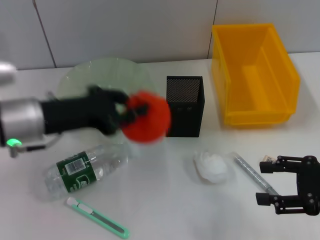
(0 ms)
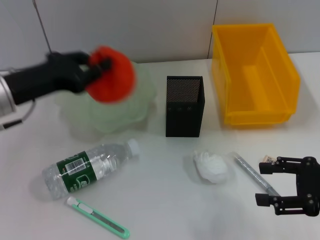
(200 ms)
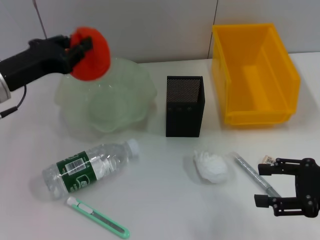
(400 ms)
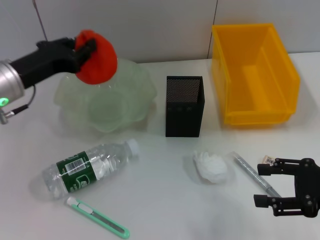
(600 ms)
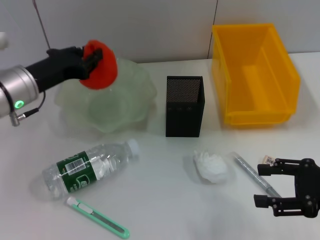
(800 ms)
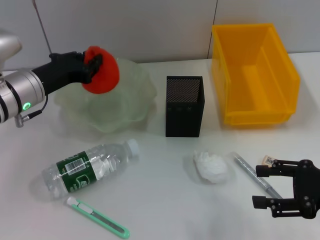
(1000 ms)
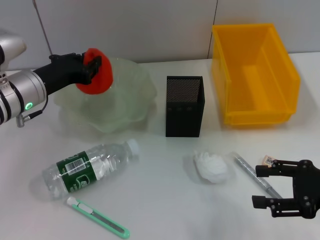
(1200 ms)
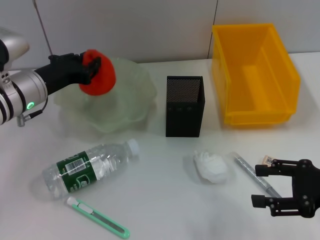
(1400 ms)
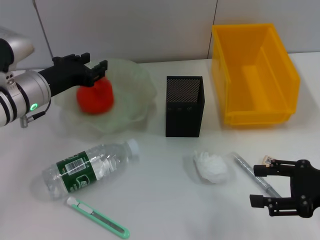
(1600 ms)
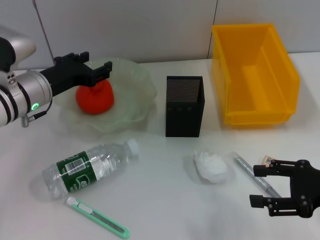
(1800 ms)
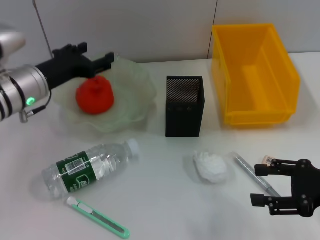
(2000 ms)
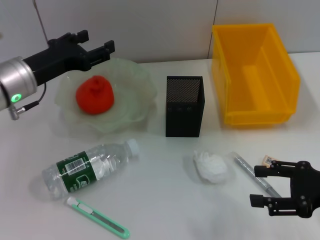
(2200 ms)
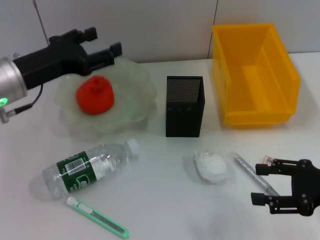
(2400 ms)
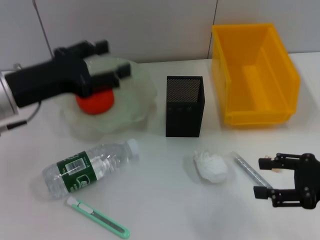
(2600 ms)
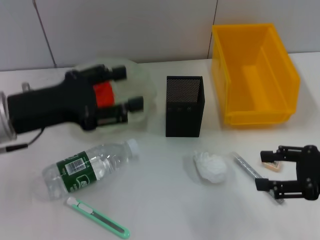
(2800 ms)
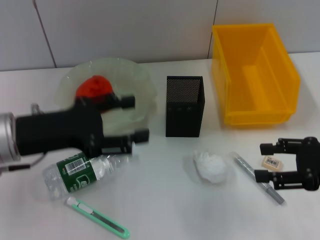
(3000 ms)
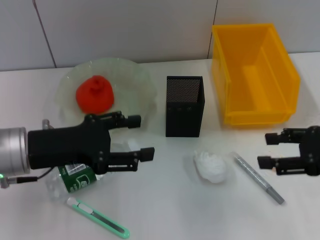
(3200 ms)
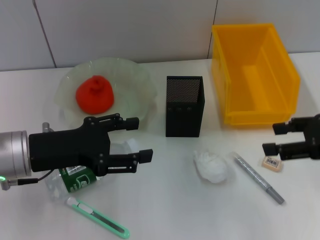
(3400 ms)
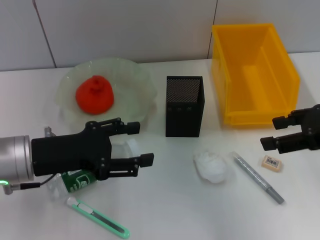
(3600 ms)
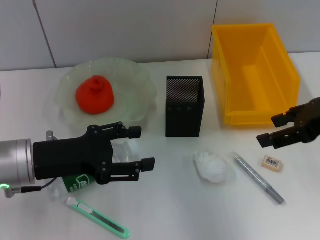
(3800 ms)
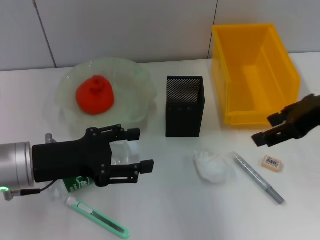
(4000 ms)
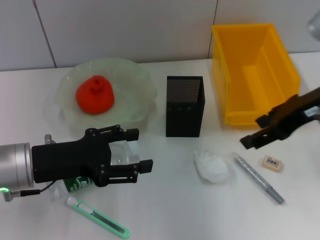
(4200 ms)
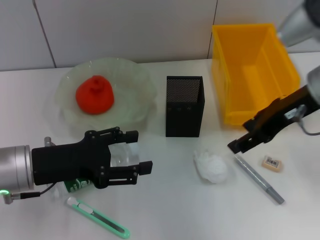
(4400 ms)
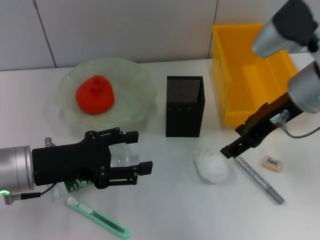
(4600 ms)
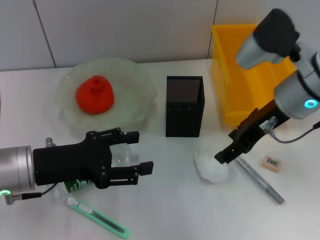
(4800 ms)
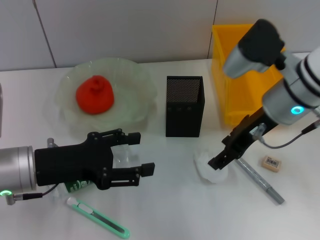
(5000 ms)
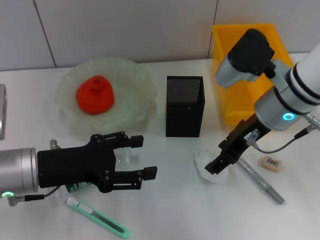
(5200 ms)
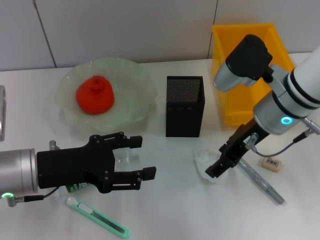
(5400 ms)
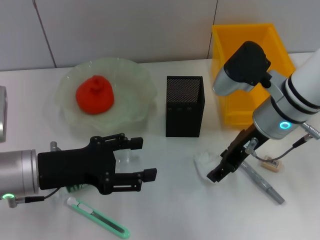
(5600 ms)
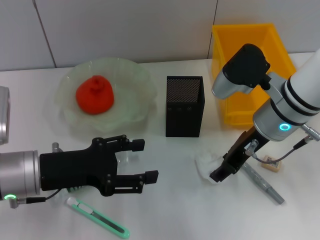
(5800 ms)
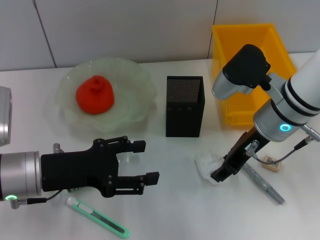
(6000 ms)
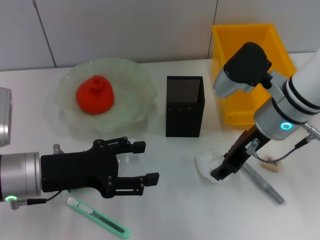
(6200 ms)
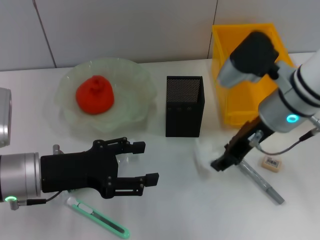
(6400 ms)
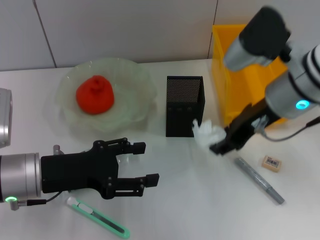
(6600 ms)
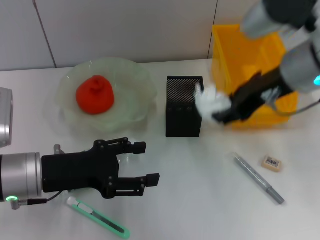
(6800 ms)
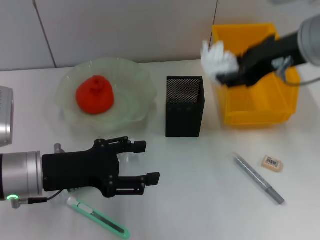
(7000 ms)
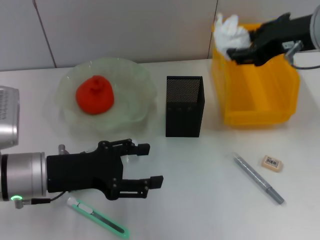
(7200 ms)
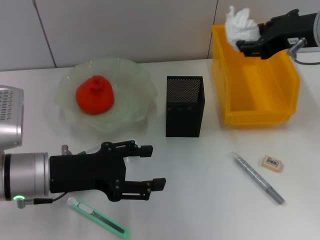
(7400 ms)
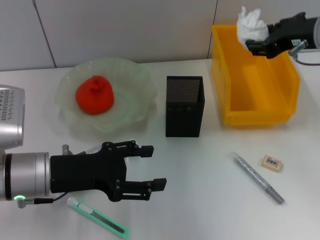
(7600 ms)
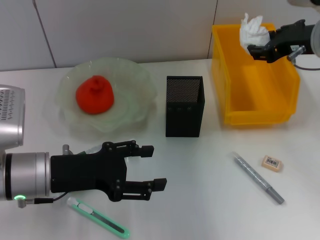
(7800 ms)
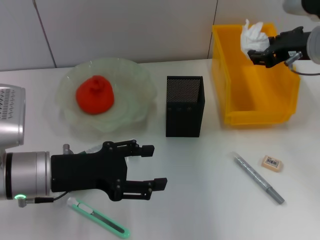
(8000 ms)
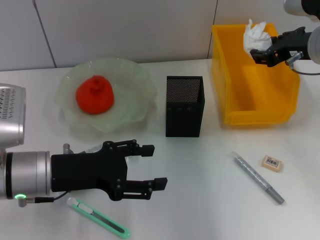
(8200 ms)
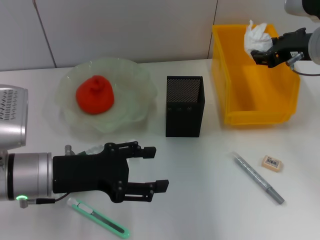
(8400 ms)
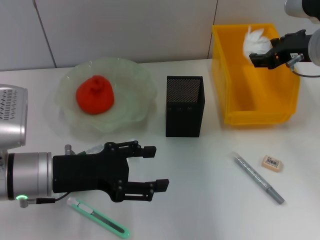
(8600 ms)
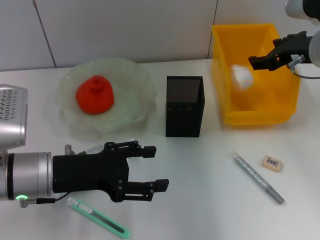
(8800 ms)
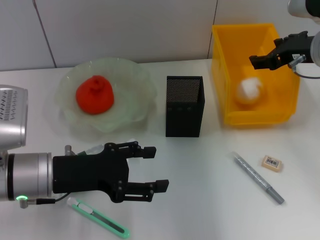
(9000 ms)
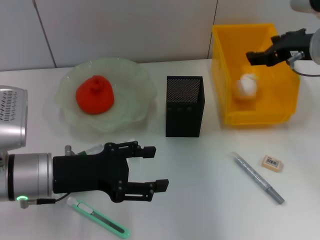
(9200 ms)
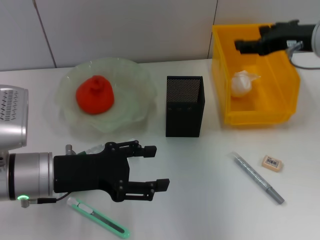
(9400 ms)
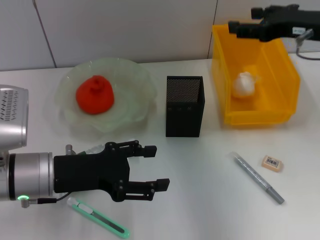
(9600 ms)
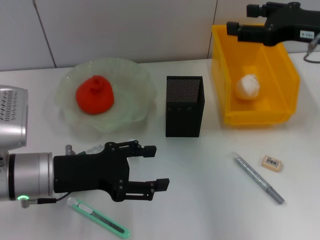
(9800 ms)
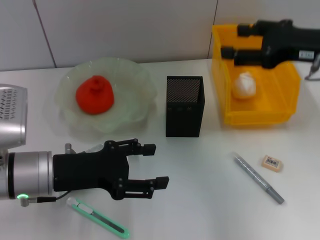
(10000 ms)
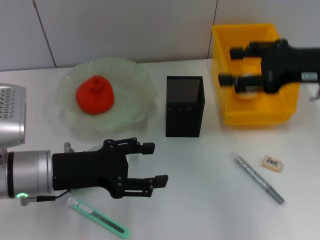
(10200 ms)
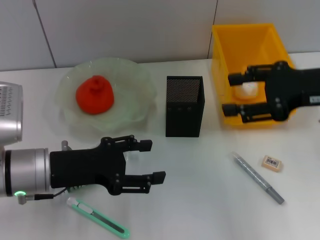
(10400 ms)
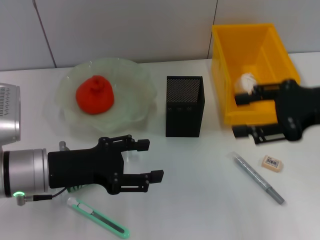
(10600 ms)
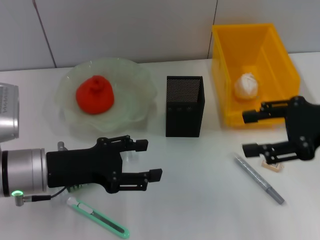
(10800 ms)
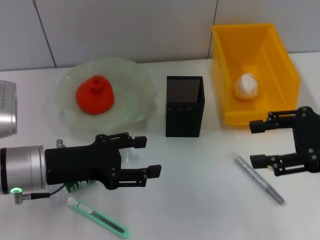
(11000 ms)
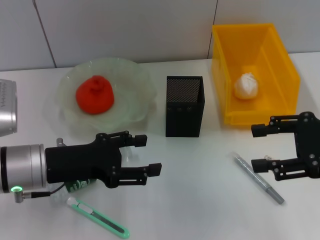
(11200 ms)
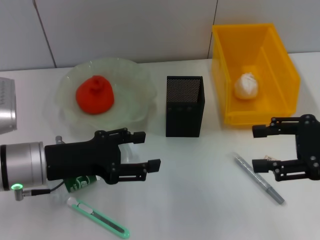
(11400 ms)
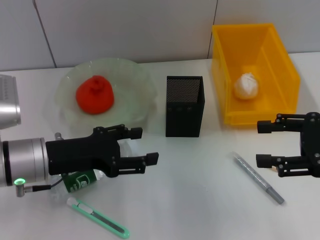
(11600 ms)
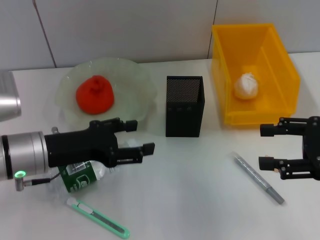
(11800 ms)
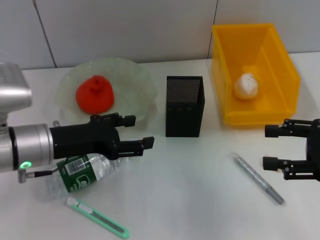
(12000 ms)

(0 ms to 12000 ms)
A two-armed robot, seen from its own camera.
Step, 0 ms - 1800 ms: Place the orange into the fruit bowl with the left hand.
Step, 2200 ms - 5800 ms: Grab the paper ball with the right hand.
Step, 6000 ms - 9400 ms: Place the paper ball into the trash can with the right hand.
0 ms - 1600 ms: The left gripper travels forward by roughly 10 cm.
1600 ms - 3000 ms: The left gripper heads backward, covering approximately 10 cm, and opens up.
3000 ms - 4400 ms: The right gripper is displaced to the left, upward and forward by about 15 cm.
4400 ms - 6000 ms: The right gripper shifts some 10 cm downward and to the left.
6000 ms - 7600 ms: The right gripper heads upward and to the right, covering roughly 10 cm.
7600 ms - 9000 ms: The right gripper shifts by some 5 cm, and opens.
9000 ms - 10400 ms: The right gripper travels backward by about 10 cm.
10400 ms - 12000 ms: The right gripper moves backward, downward and to the right, about 10 cm.

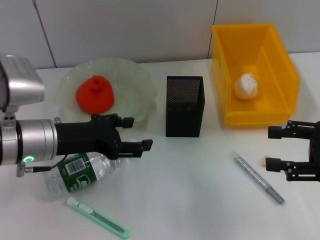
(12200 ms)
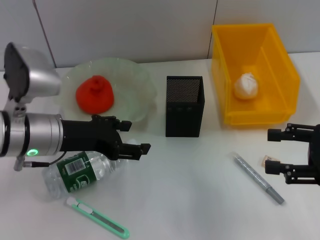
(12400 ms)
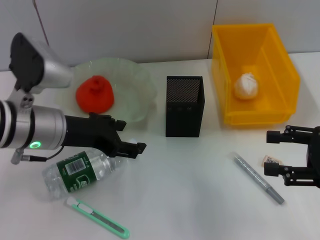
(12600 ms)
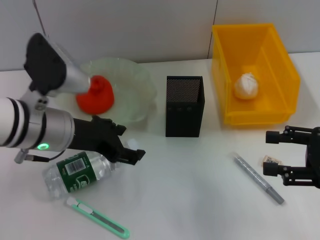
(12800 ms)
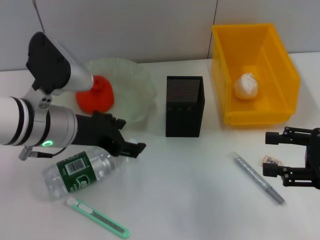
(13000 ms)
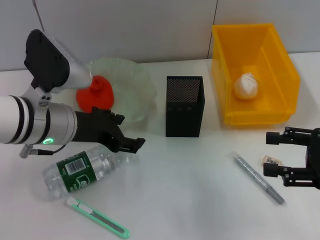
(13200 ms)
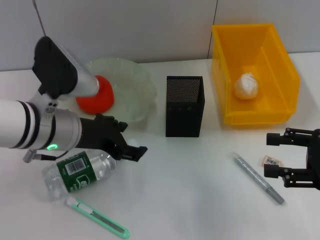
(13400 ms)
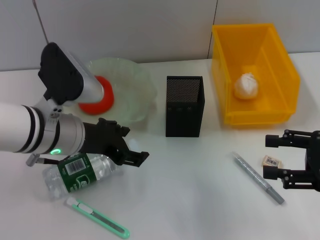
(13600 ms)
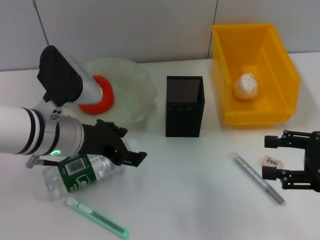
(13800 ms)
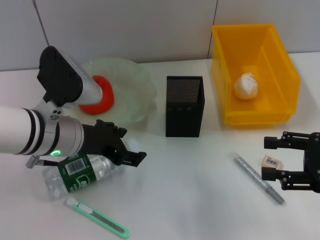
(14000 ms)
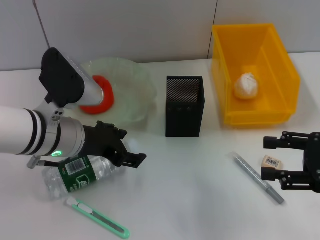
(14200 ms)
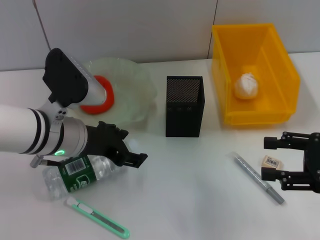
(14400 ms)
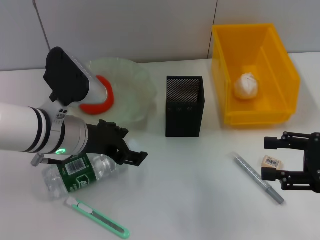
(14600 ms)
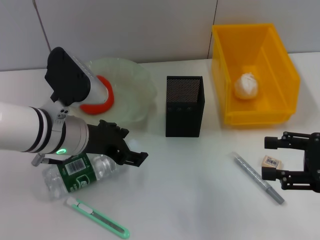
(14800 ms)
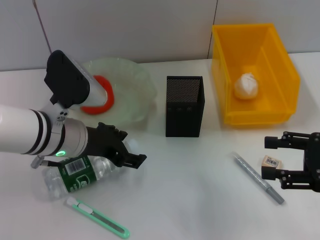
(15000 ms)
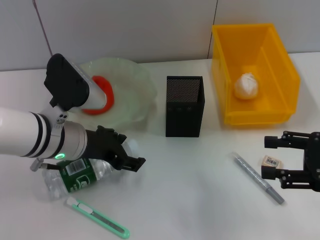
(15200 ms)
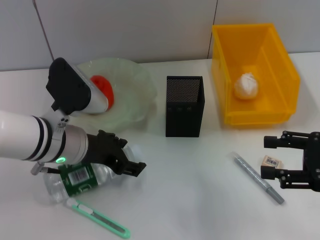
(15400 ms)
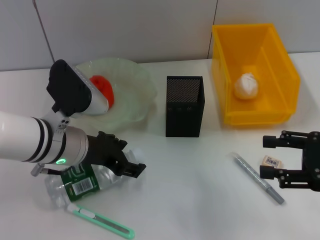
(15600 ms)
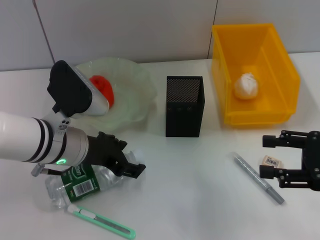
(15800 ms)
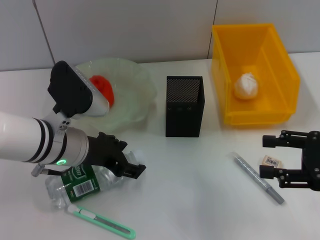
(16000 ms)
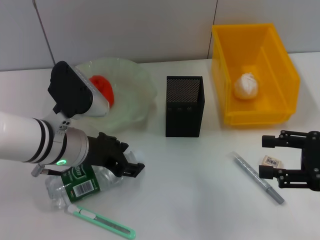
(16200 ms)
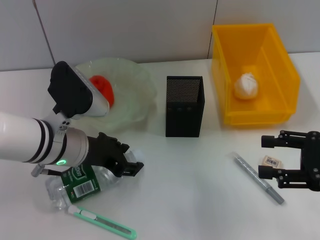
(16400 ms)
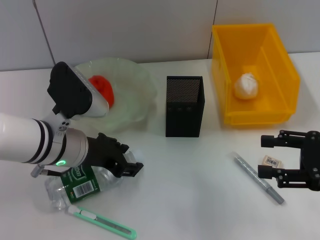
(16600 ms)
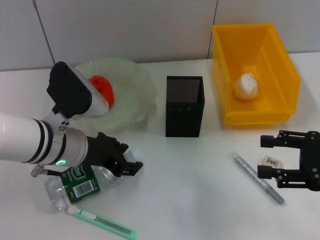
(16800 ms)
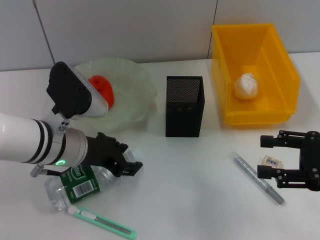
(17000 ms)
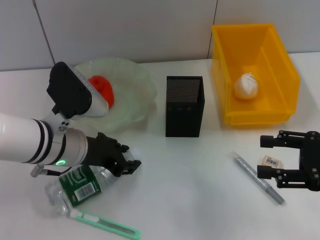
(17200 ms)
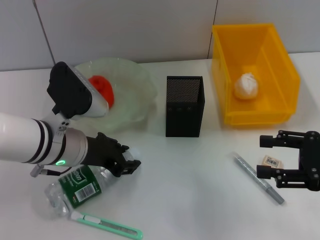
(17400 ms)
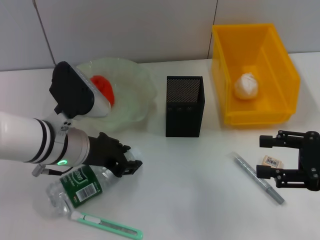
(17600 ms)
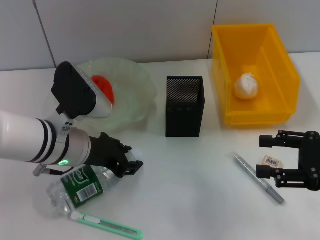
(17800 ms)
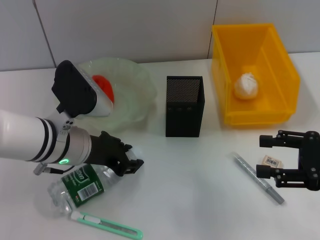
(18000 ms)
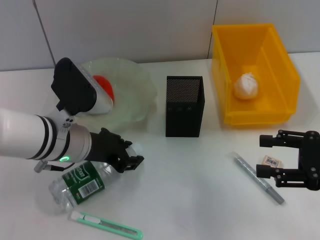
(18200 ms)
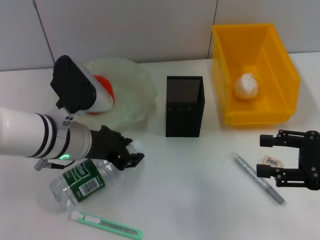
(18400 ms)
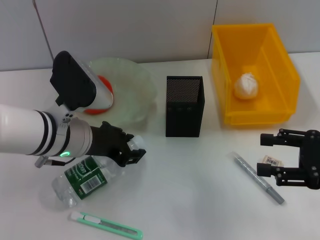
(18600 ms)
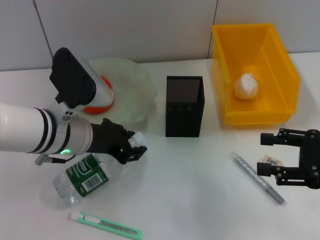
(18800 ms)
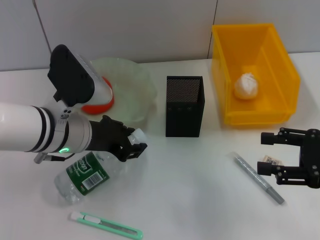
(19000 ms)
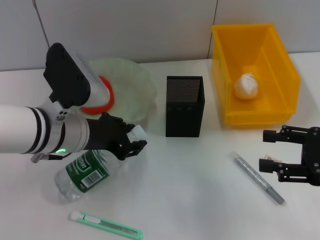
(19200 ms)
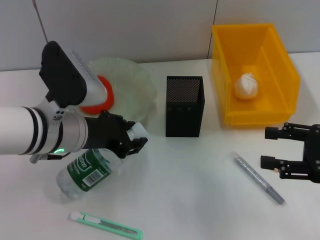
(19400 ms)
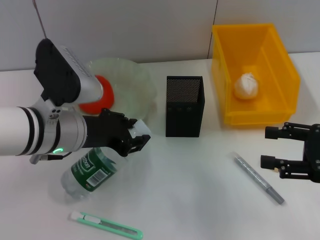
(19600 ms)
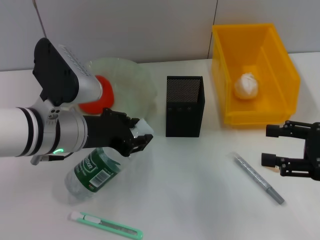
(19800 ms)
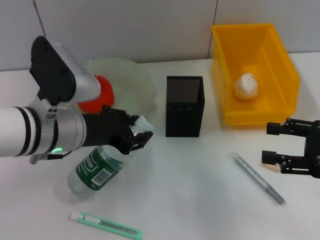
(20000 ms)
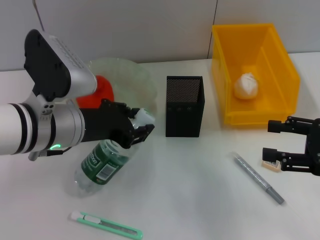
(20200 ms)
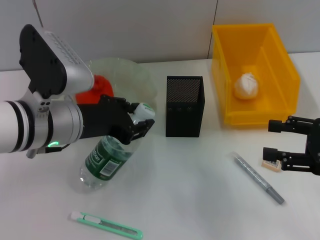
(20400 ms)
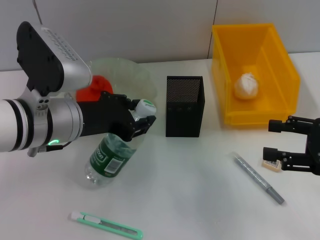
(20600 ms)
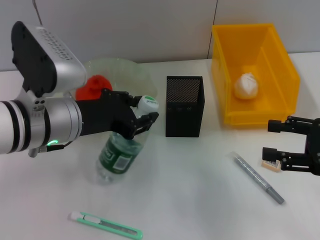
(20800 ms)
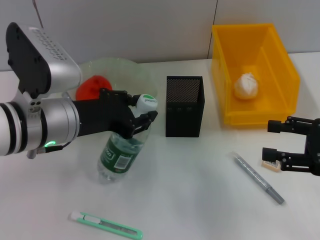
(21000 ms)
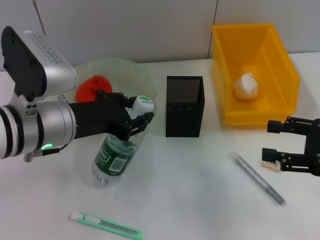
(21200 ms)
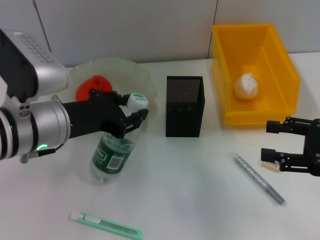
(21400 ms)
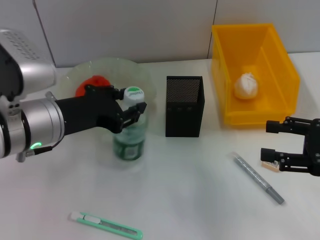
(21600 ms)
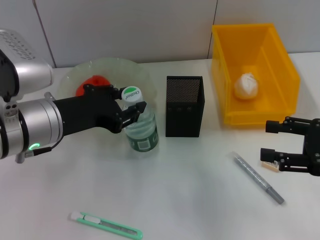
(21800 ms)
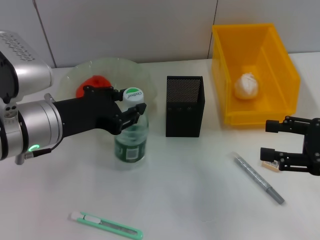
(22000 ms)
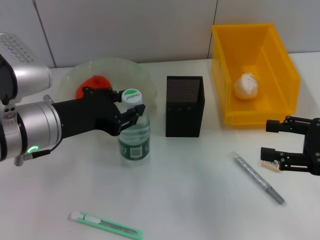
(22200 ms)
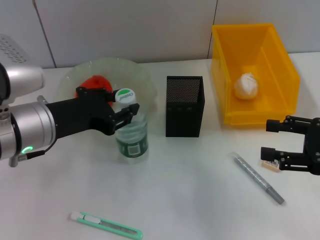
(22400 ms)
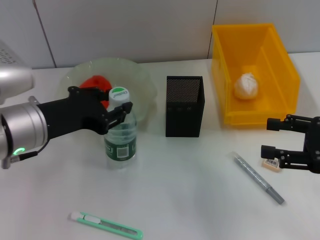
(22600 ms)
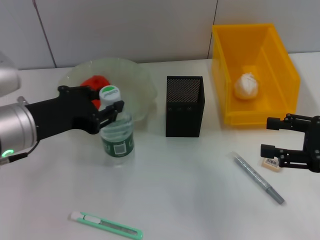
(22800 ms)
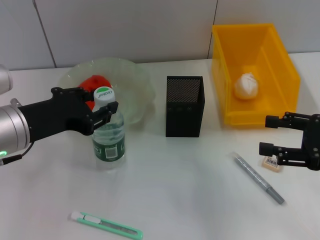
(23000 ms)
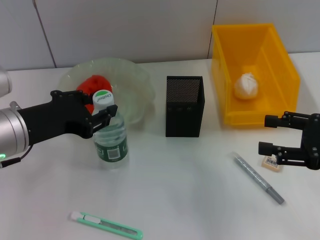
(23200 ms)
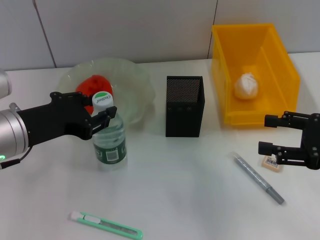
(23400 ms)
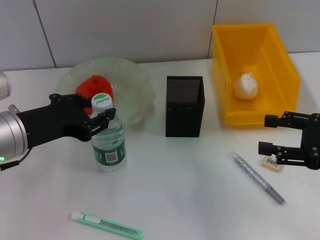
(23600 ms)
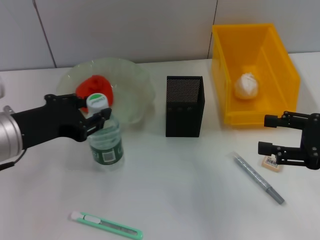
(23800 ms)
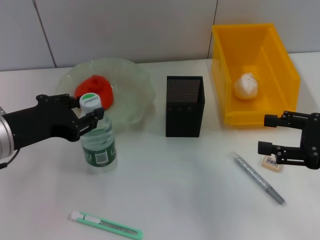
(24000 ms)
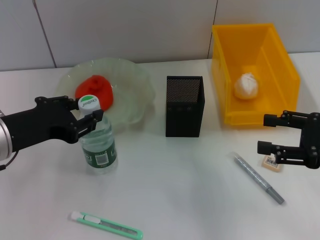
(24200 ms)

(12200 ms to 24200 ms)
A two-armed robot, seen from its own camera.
Step, 12200 ms - 17600 ms: Grab the water bottle with the left hand.
13800 ms - 15200 ms: The grippers move only a little.
15200 ms - 18200 ms: The two grippers keep their place.
18200 ms - 19800 ms: The grippers stay close to where they were, moving slightly.
19800 ms - 22600 ms: There are only small adjustments of the grippers.
22600 ms - 24200 ms: The grippers make only small movements.
